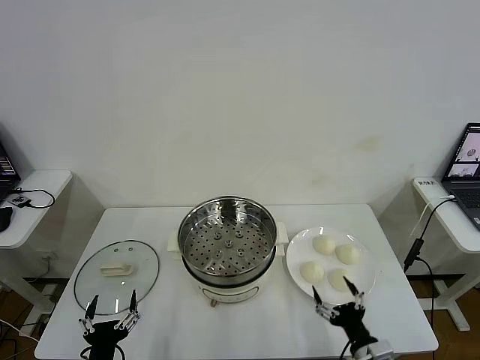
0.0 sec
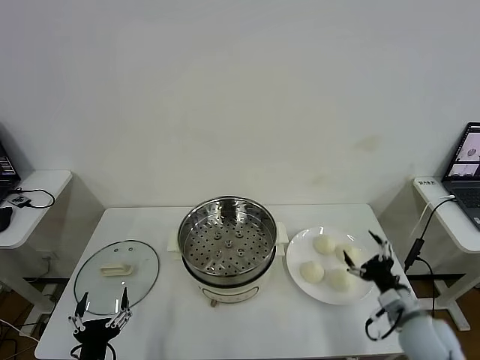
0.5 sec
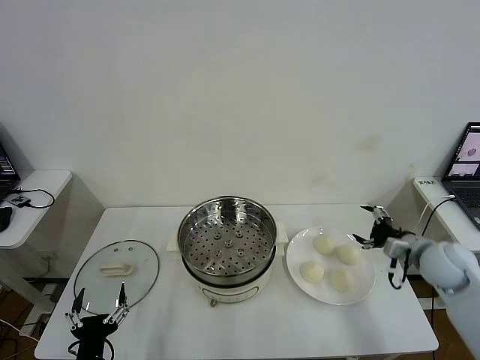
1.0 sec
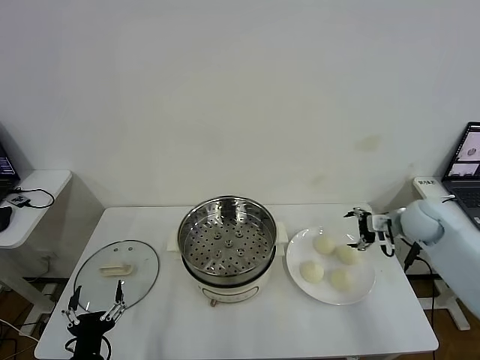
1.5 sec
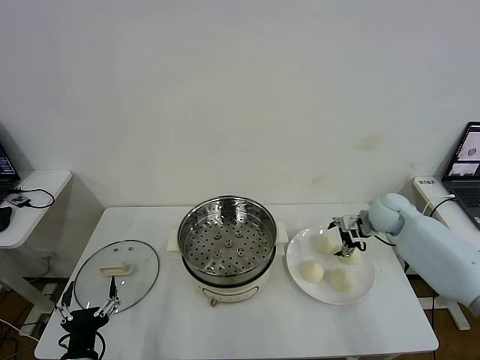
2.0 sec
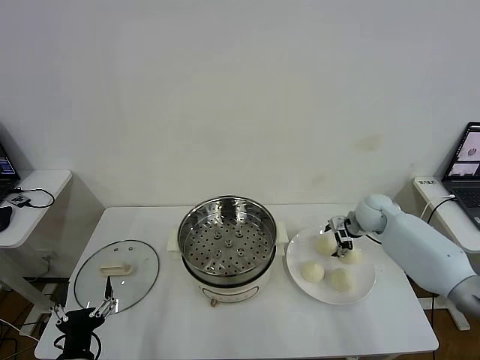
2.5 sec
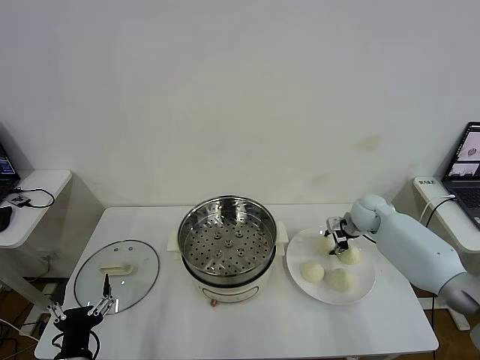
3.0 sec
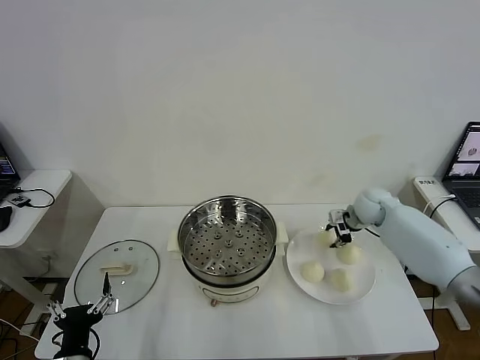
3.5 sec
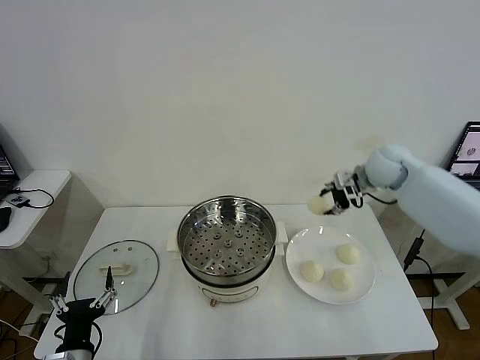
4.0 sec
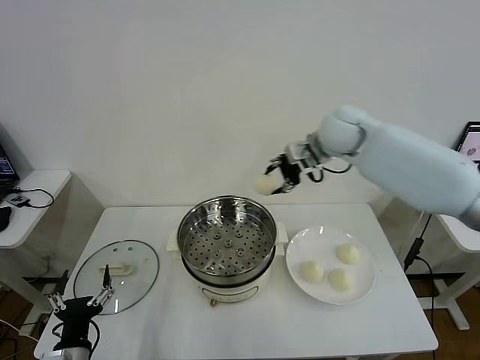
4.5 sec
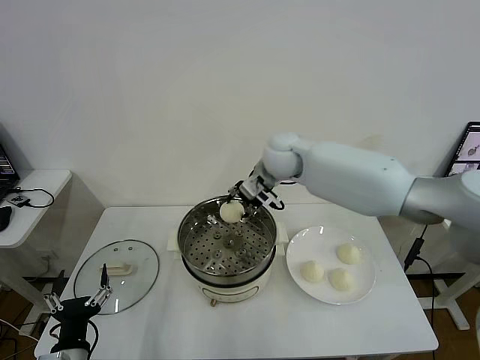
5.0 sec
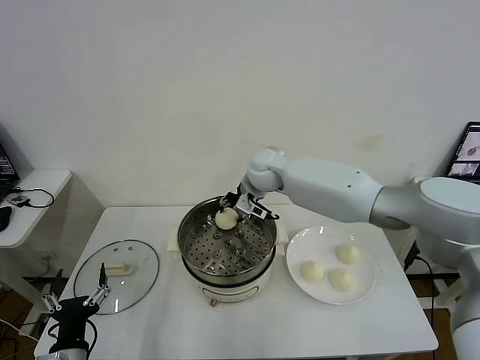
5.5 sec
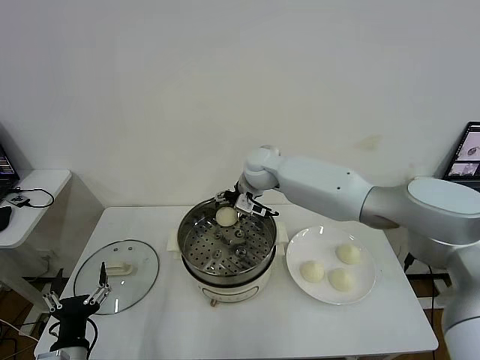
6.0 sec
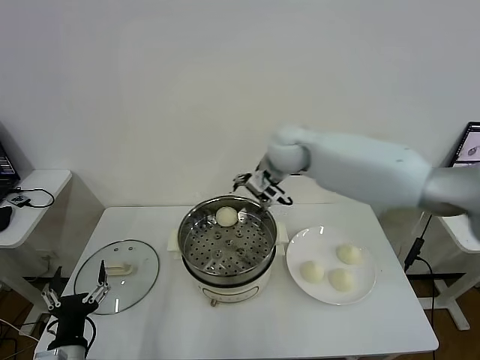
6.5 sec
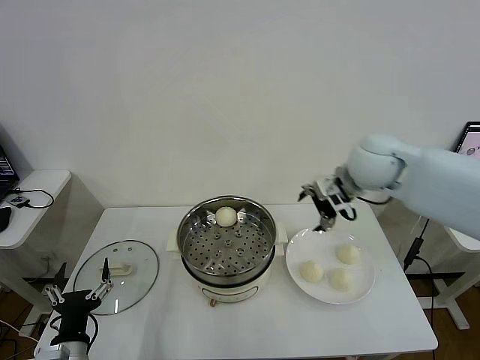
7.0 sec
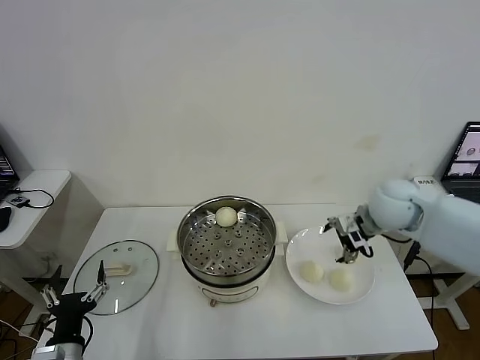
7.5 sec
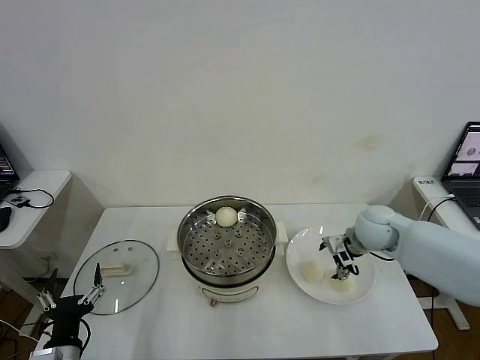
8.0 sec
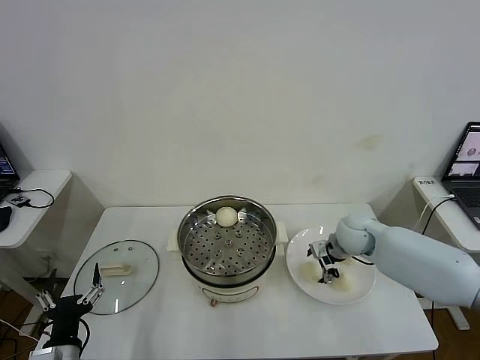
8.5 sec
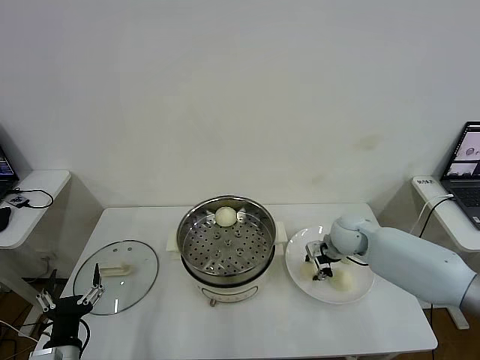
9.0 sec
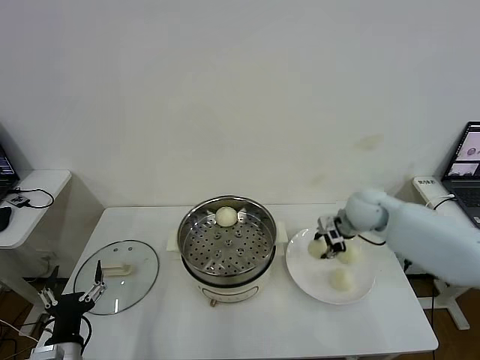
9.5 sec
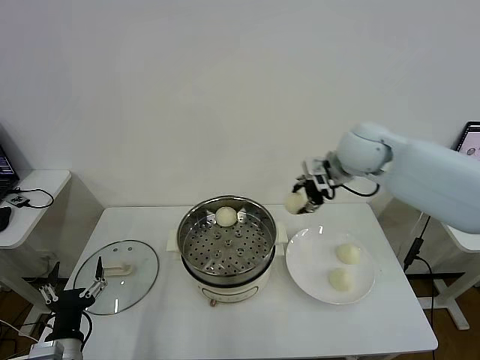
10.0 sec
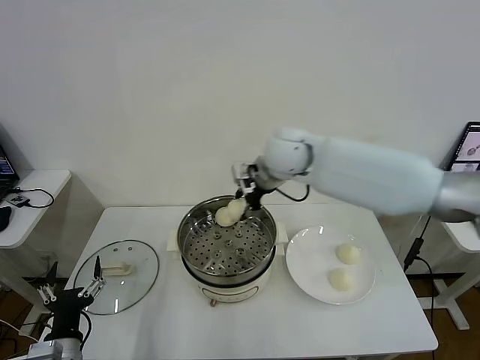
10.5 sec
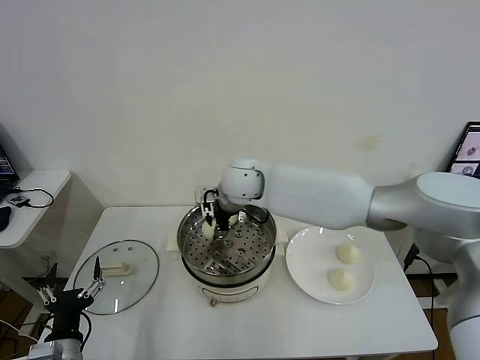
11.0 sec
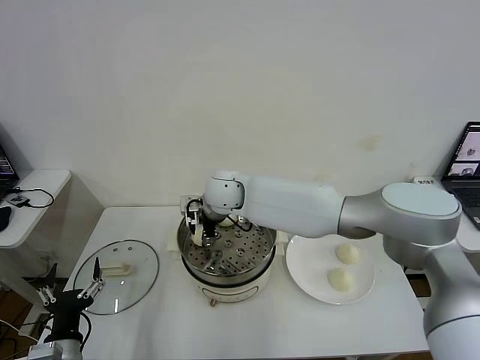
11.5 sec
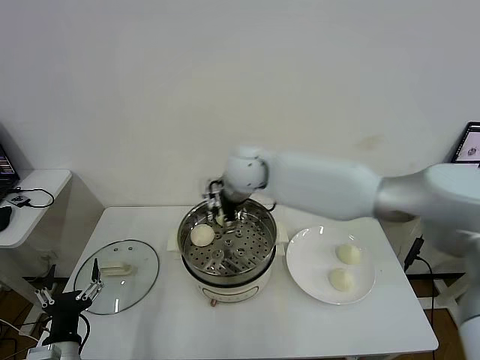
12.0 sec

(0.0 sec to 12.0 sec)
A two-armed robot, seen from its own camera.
Step, 0.0 sec - 3.0 sec: Grasp the baozi in the plate with right gripper.
Step, 3.5 sec - 6.0 sec: Place the baozi on the steamer with right gripper.
Step, 6.5 sec - 8.5 sec: Grasp the baozi in the plate with right gripper.
Step, 9.0 sec - 11.5 sec: Place the baozi on the steamer with right gripper.
2.0 sec - 4.0 sec: The right gripper goes about 15 cm upward, and closes.
4.0 sec - 6.0 sec: The right gripper goes roughly 25 cm to the left, and opens.
6.0 sec - 8.0 sec: The right gripper travels to the right and backward by about 30 cm.
8.0 sec - 10.0 sec: The right gripper is displaced upward and to the left by roughly 20 cm, and closes up.
10.0 sec - 12.0 sec: The right gripper is displaced to the left by about 20 cm, and opens.

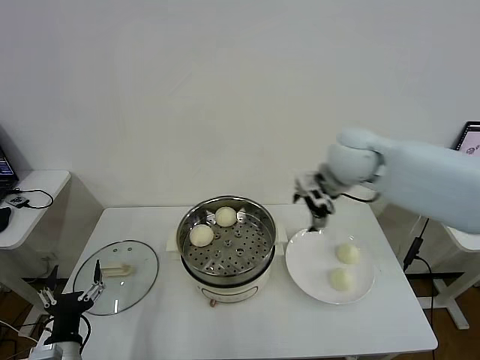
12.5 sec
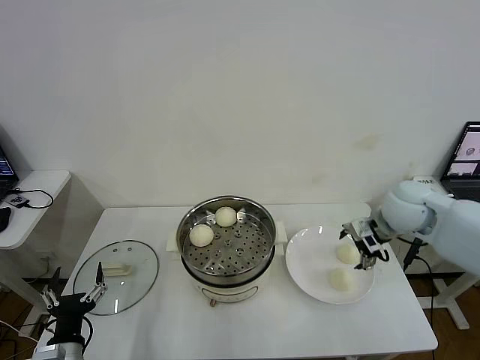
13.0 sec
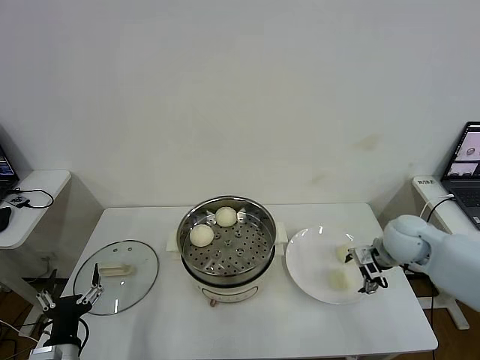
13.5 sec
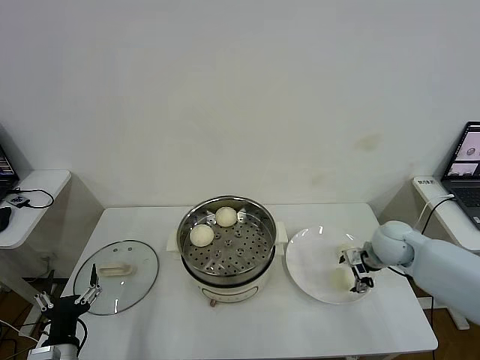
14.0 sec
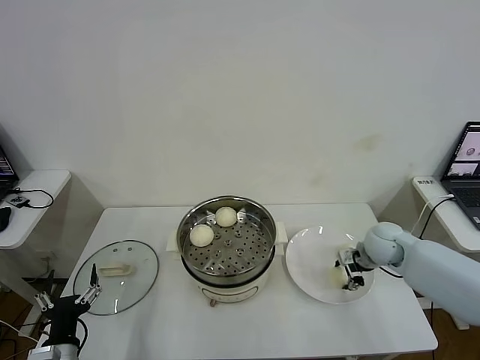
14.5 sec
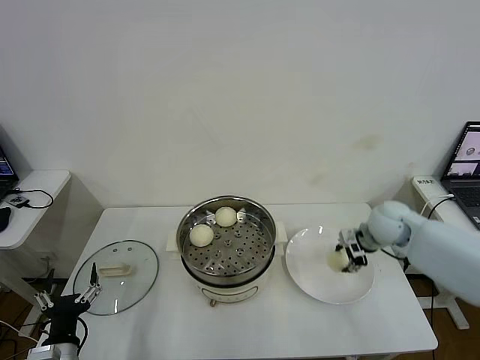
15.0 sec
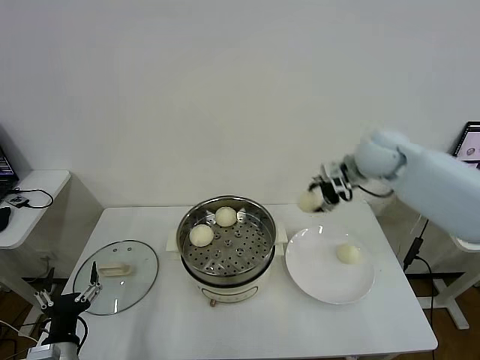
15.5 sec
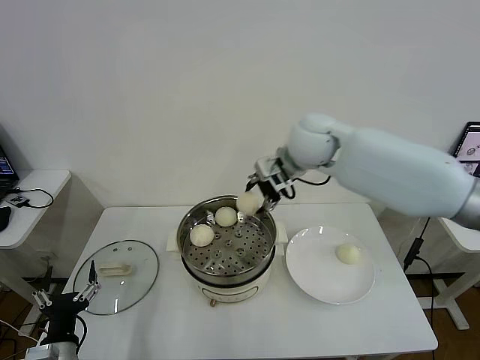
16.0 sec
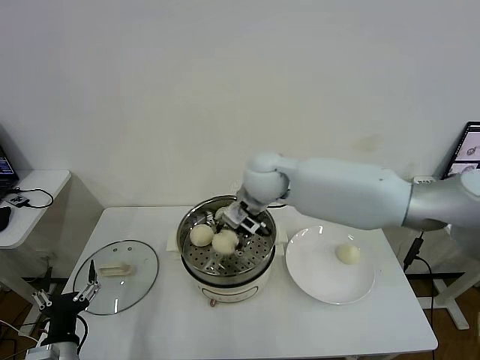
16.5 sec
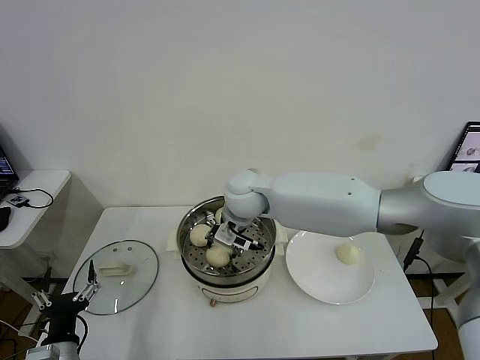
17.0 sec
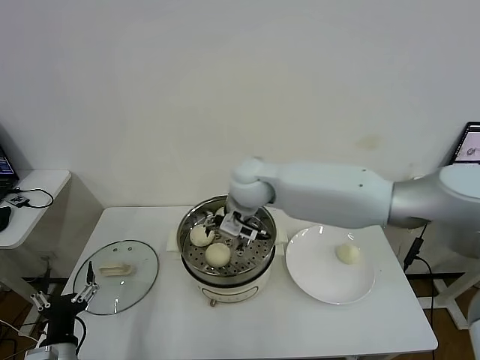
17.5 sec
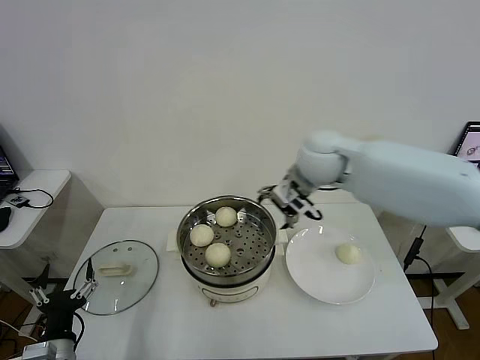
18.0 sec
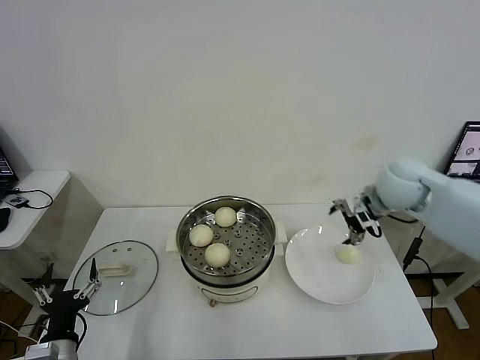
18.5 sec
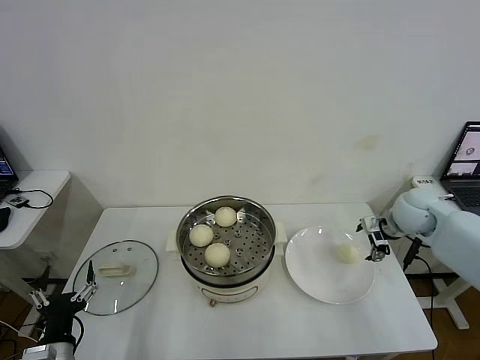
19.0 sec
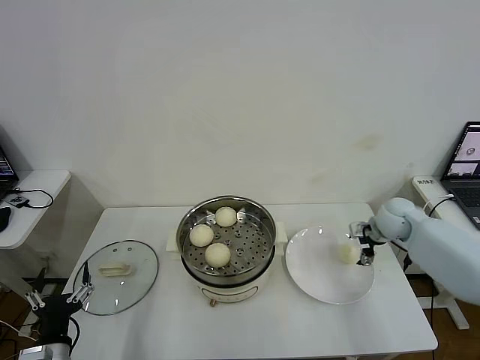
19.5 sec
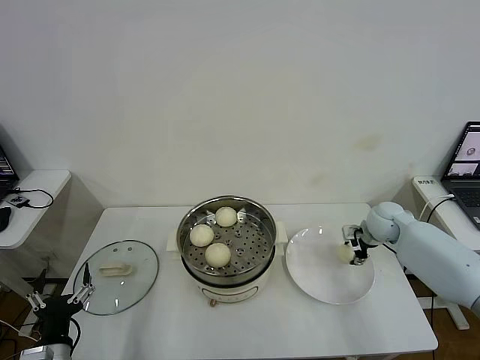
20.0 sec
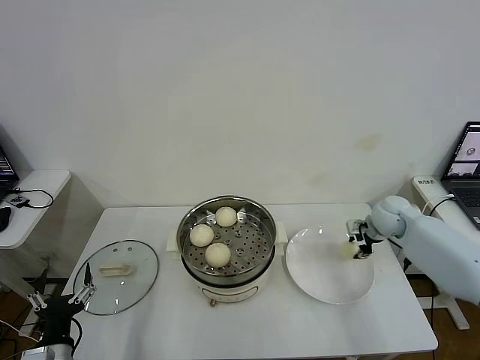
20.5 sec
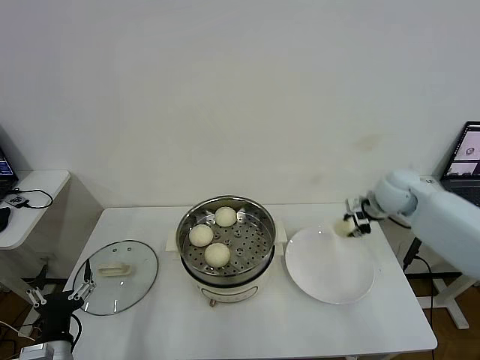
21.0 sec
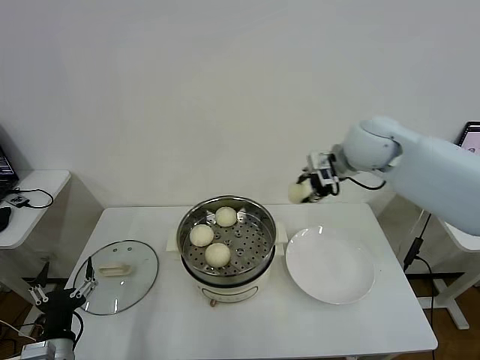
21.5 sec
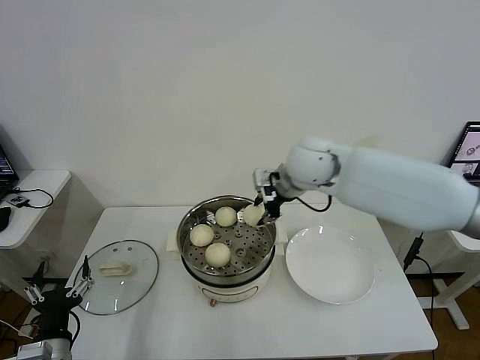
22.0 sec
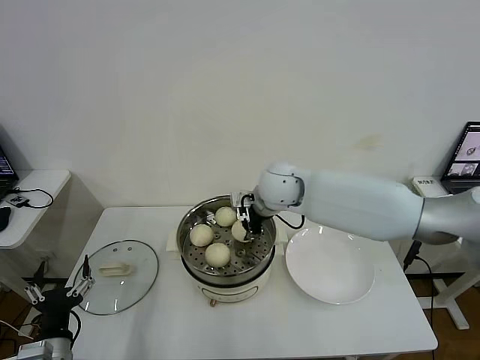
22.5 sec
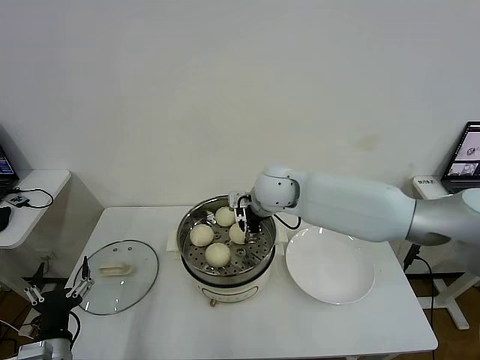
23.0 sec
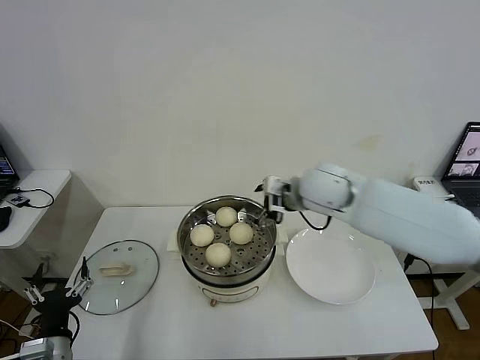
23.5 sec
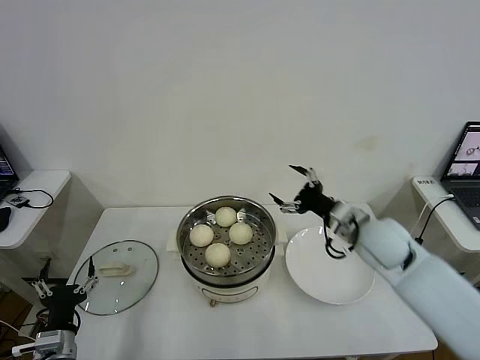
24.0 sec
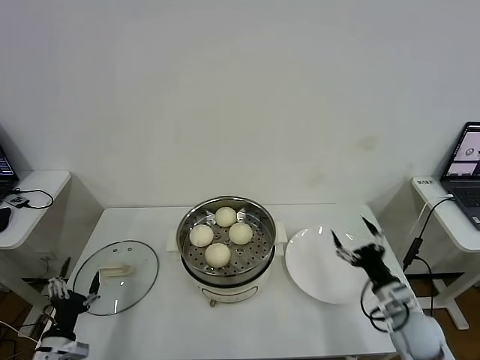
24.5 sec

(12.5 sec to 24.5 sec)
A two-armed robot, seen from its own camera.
Step, 12.5 sec - 14.5 sec: Grasp the baozi in the plate with right gripper.
Step, 15.0 sec - 17.0 sec: Place the baozi on the steamer with right gripper.
Step, 17.5 sec - 20.0 sec: Grasp the baozi in the plate with right gripper.
Step, 20.5 sec - 23.0 sec: Place the baozi on the steamer with right gripper.
12.5 sec - 14.5 sec: The right gripper shifts approximately 25 cm downward and to the right, and closes.
14.5 sec - 16.5 sec: The right gripper moves to the left and upward, some 35 cm.
16.5 sec - 18.5 sec: The right gripper shifts about 25 cm to the right, and opens its fingers.
18.5 sec - 20.5 sec: The right gripper shifts about 15 cm downward and to the right, and closes.
20.5 sec - 22.5 sec: The right gripper moves to the left and upward, some 30 cm.
22.5 sec - 24.5 sec: The right gripper travels to the right, backward and downward by about 40 cm, and opens its fingers, while the left gripper goes approximately 5 cm to the left and downward.

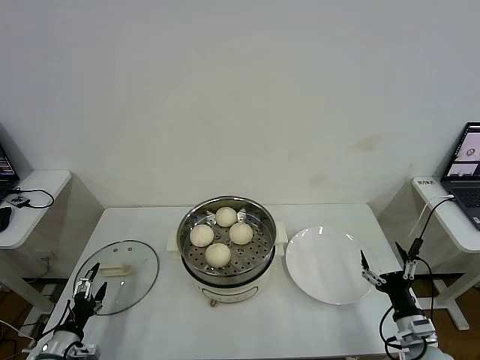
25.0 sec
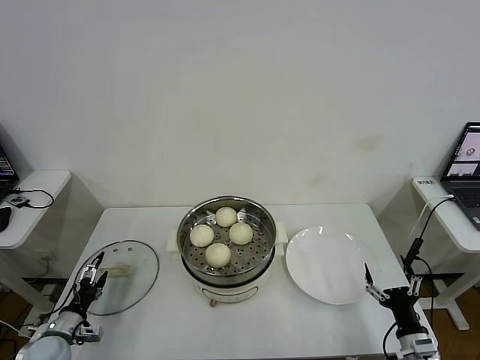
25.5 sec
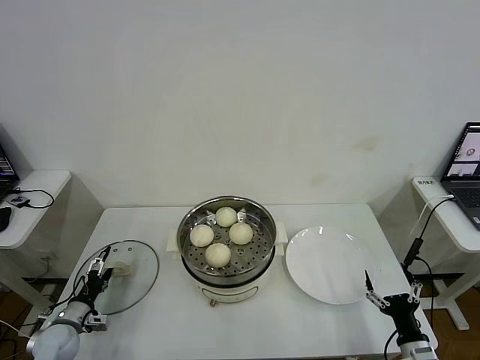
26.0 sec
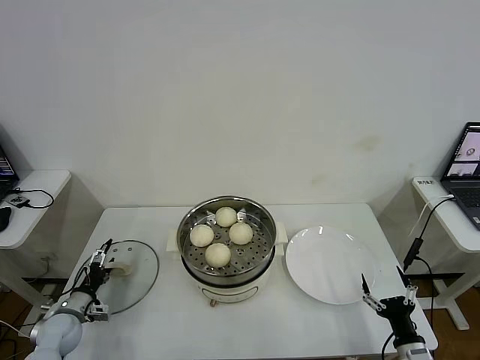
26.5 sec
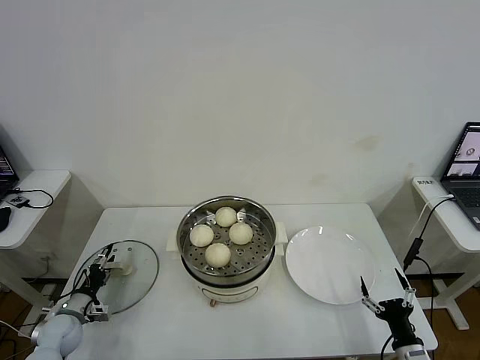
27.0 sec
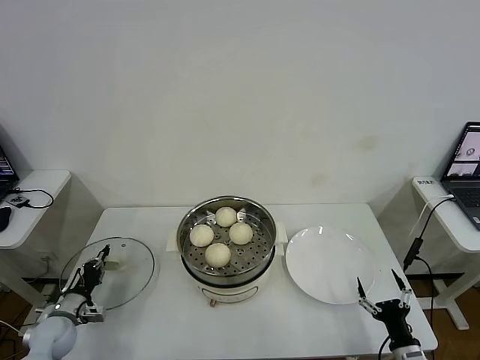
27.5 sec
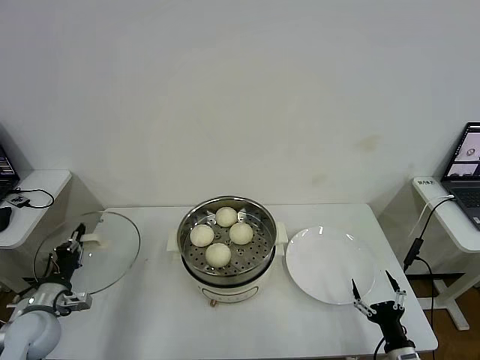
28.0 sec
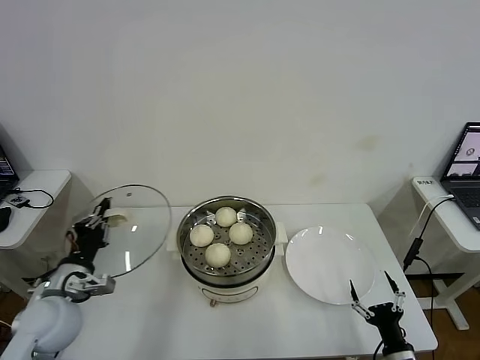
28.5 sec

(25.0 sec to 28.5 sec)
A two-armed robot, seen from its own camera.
Step, 25.0 sec - 27.5 sec: Grasp the pot lid with left gripper.
25.0 sec - 27.0 sec: The right gripper moves backward, about 5 cm; the left gripper heads forward, covering about 10 cm.
27.0 sec - 28.5 sec: The left gripper shifts approximately 20 cm upward and to the right, and closes.
